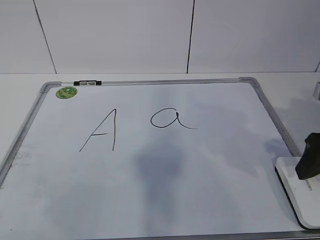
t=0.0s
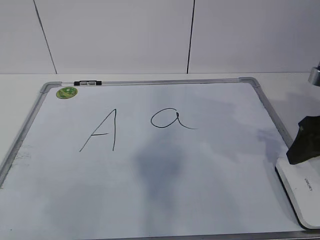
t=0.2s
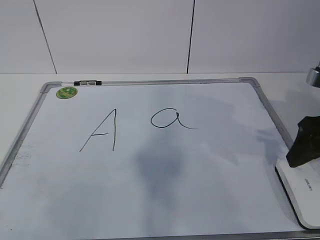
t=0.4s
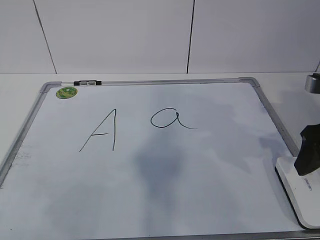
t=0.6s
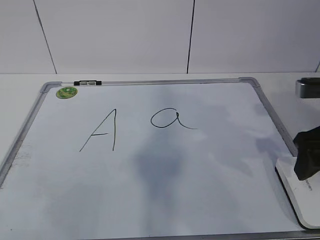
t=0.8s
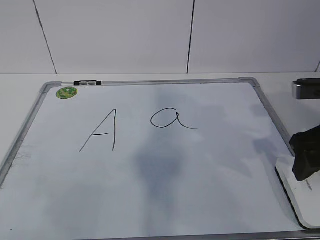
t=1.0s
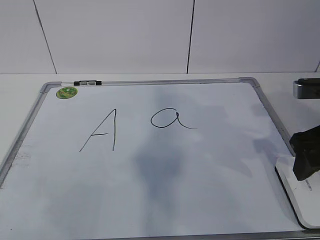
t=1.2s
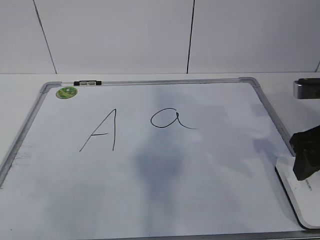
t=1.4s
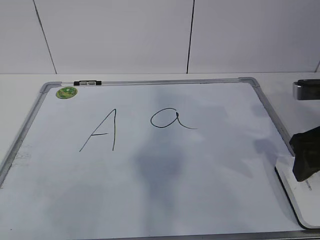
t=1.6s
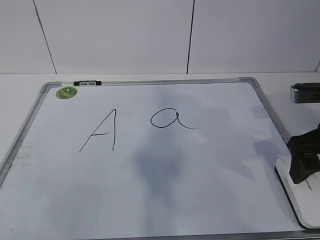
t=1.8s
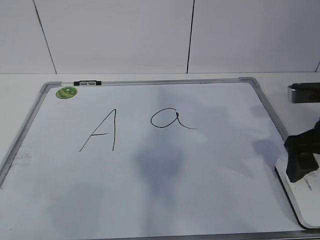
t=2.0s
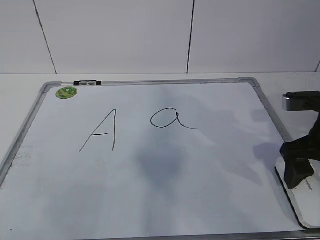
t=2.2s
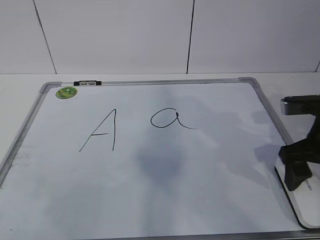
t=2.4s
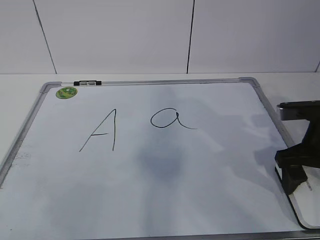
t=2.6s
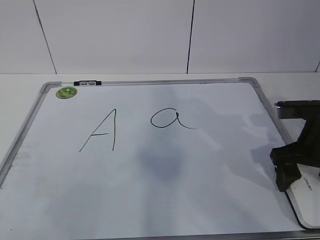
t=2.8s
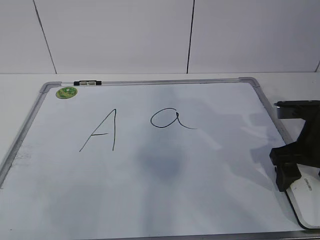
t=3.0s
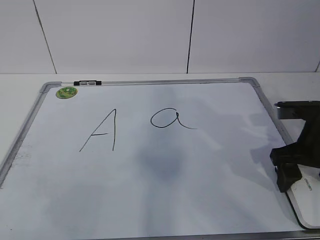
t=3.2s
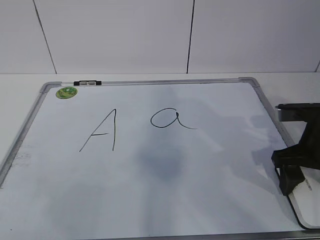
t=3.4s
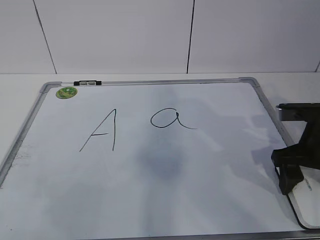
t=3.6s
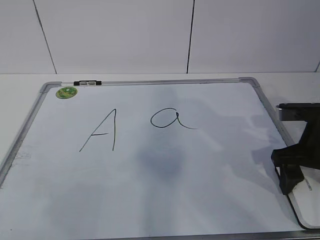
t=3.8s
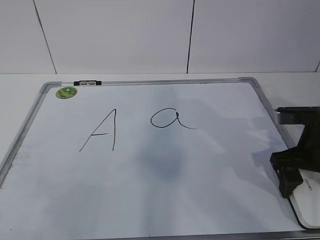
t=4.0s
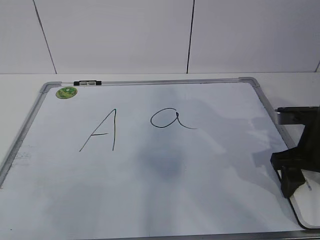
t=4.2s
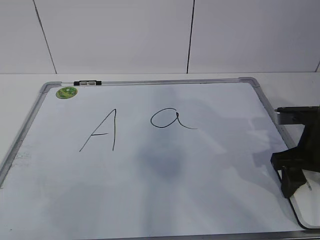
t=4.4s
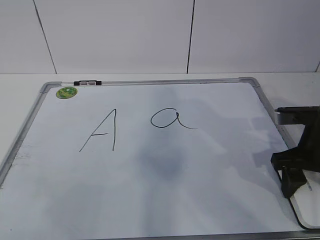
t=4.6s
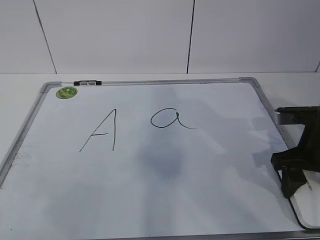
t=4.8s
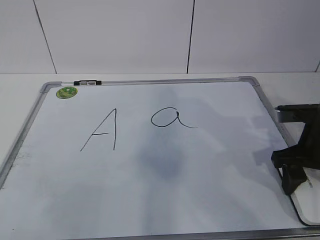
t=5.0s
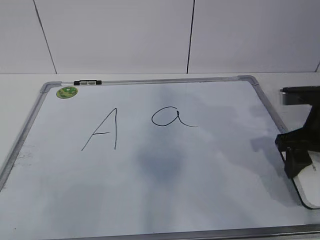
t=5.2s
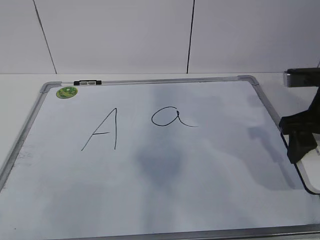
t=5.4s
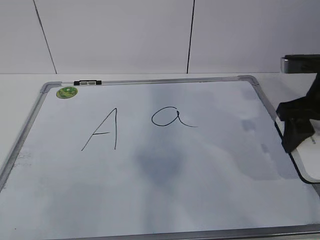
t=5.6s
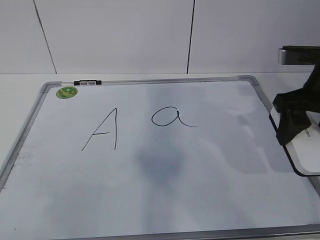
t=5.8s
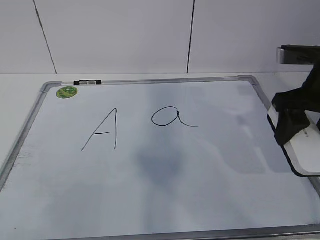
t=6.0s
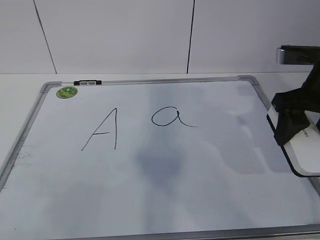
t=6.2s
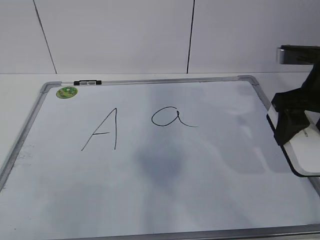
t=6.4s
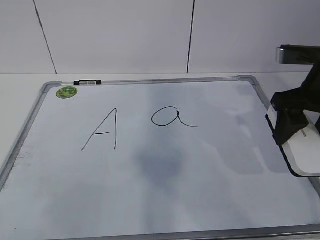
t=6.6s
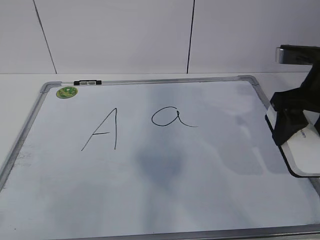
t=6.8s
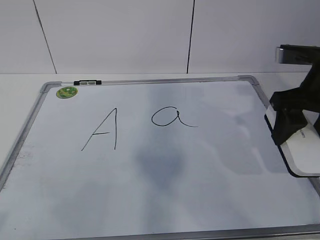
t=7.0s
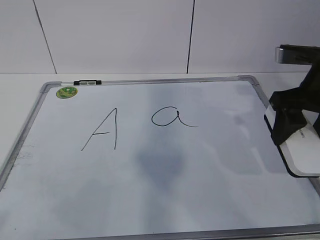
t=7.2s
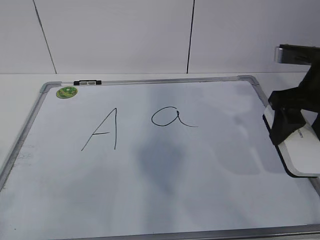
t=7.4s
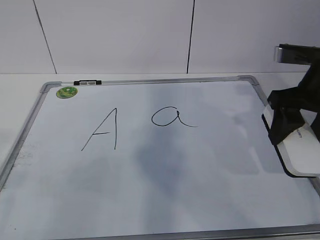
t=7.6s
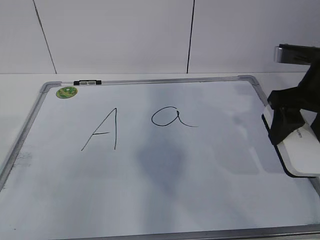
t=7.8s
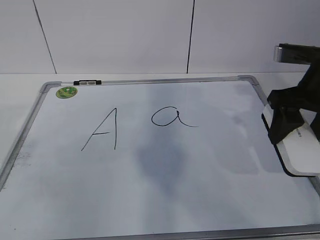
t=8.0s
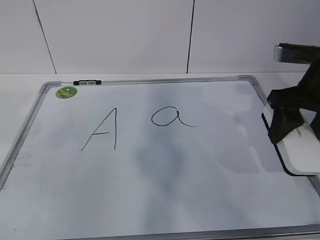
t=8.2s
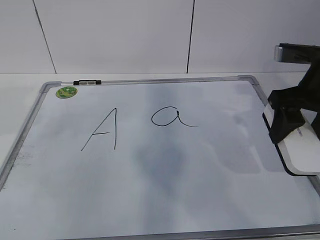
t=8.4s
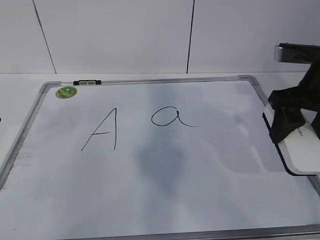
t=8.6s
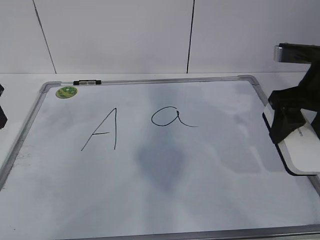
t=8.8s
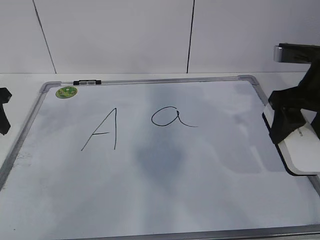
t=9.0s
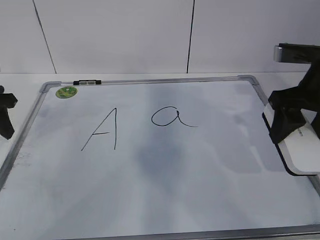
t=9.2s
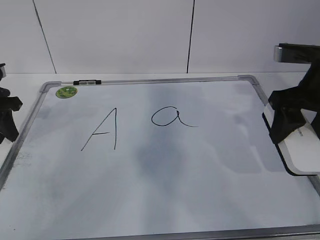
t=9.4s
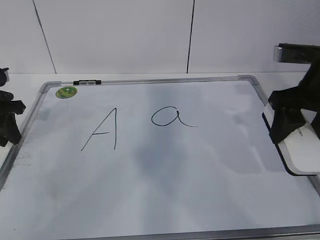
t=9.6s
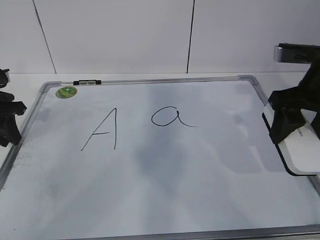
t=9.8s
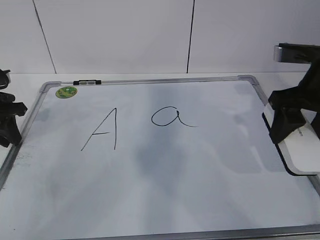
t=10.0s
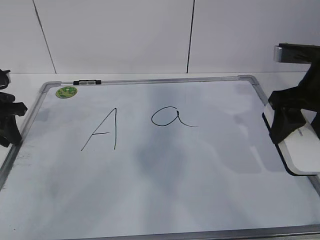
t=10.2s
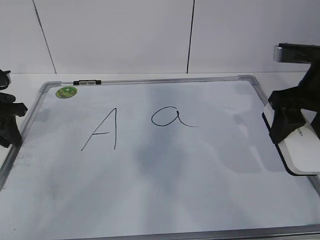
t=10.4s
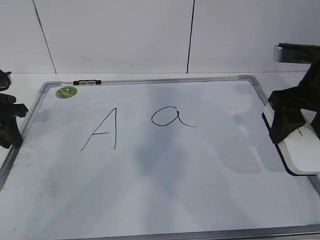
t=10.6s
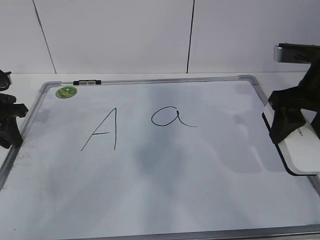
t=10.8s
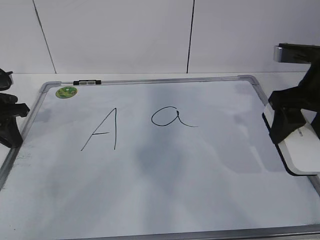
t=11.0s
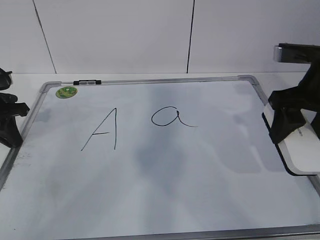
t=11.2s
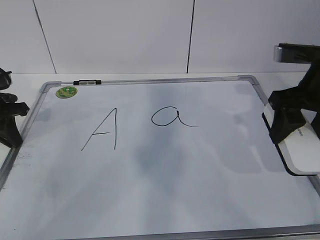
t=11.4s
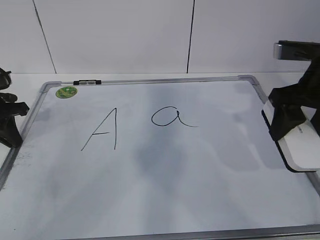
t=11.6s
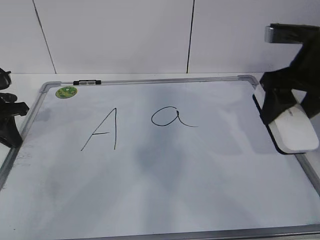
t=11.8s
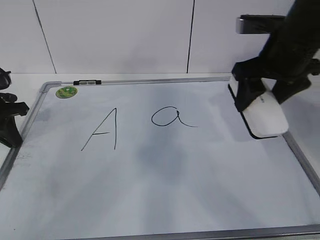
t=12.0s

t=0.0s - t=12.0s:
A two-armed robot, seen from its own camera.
Task of the whole recording: pick up the eraser on the blackboard and erase the letter "a".
Step, t=0.0s - t=2.8s: Grab the eraser with your right hand.
Step, t=3.2s - t=8.6s: Hold the drawing board steady with your left hand.
t=0.0s - t=1.6s: The grippers move only a little.
t=1.6s - t=3.0s: The right gripper shifts roughly 5 cm downward.
t=3.0s - t=4.4s: The right gripper closes its fingers.
t=4.4s - t=6.0s: The right gripper is displaced upward by roughly 10 cm.
t=7.6s - t=9.0s: The left gripper is displaced forward by some 30 cm.
t=9.0s - t=10.4s: The left gripper is displaced downward by roughly 5 cm.
t=10.4s - t=12.0s: The right gripper shifts by approximately 5 cm.

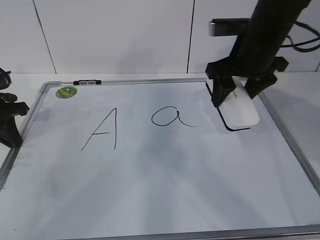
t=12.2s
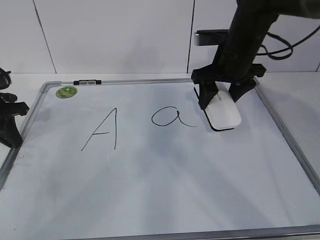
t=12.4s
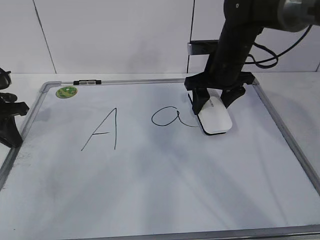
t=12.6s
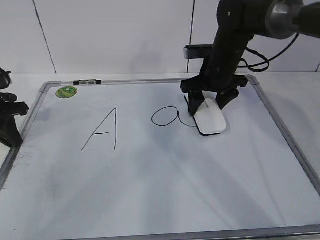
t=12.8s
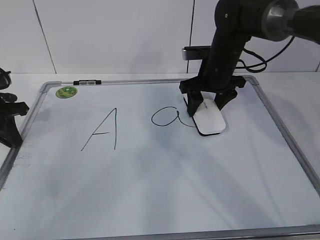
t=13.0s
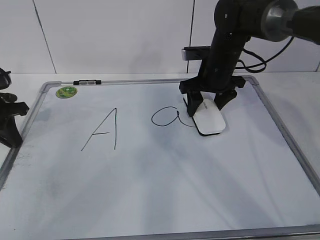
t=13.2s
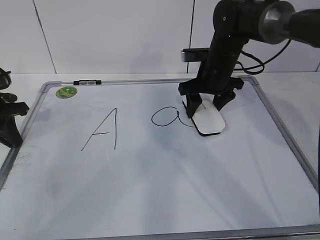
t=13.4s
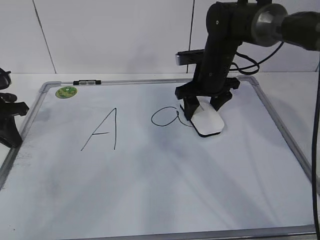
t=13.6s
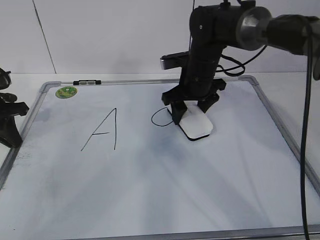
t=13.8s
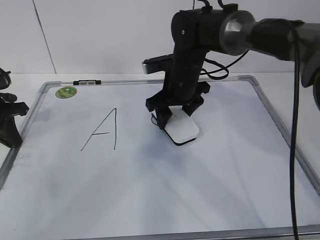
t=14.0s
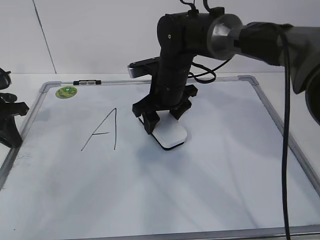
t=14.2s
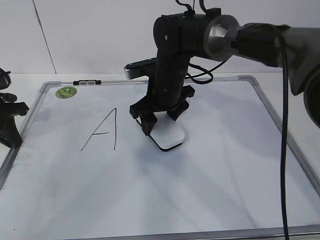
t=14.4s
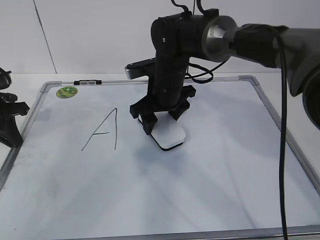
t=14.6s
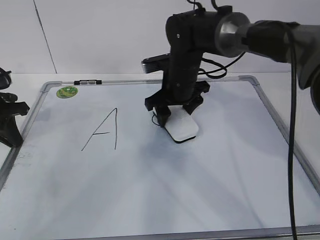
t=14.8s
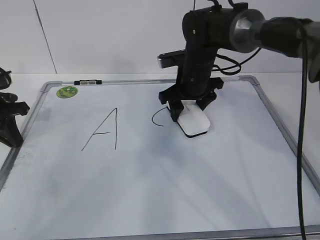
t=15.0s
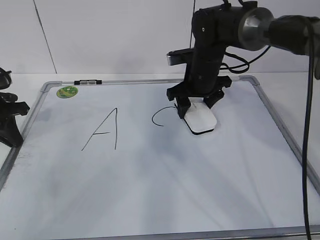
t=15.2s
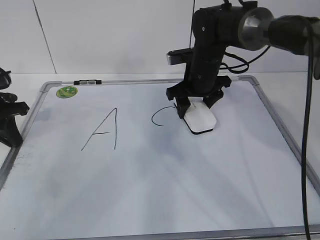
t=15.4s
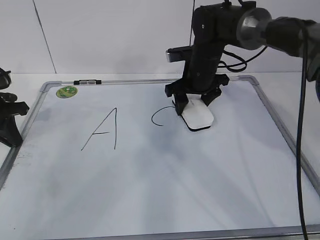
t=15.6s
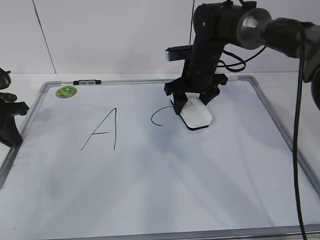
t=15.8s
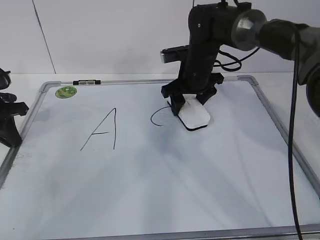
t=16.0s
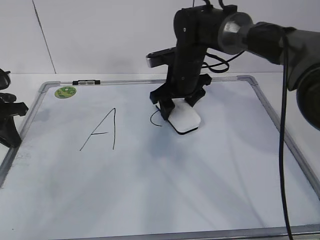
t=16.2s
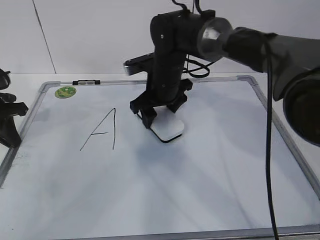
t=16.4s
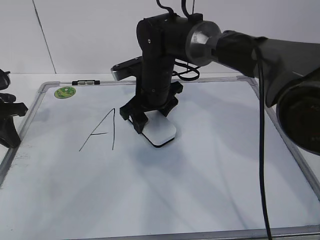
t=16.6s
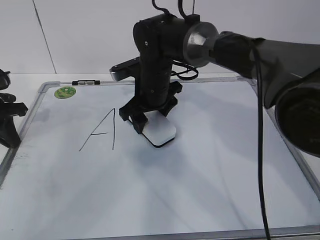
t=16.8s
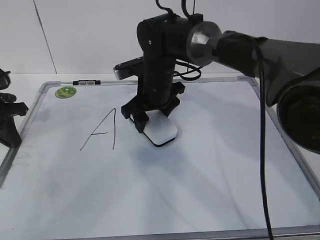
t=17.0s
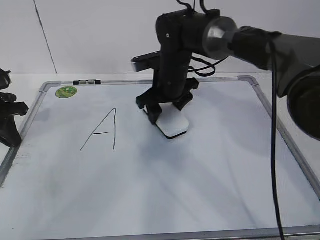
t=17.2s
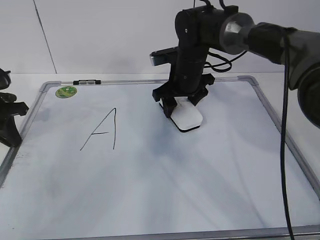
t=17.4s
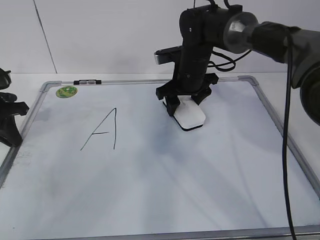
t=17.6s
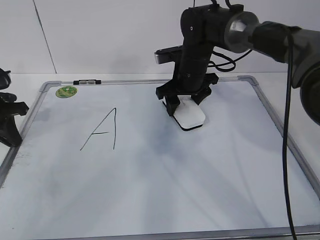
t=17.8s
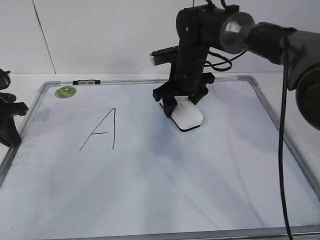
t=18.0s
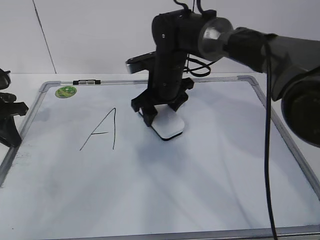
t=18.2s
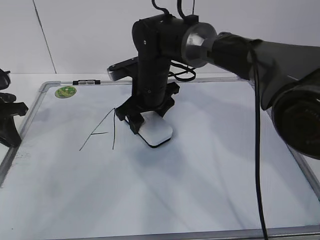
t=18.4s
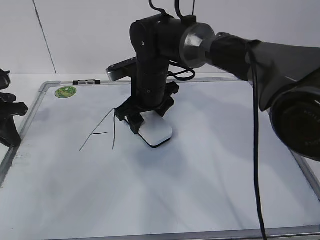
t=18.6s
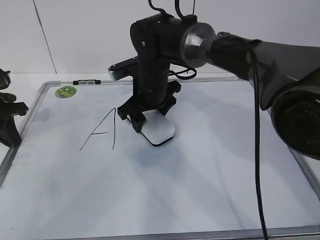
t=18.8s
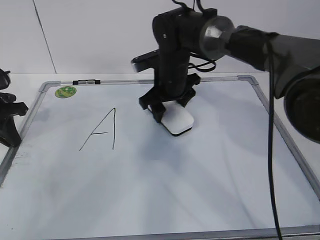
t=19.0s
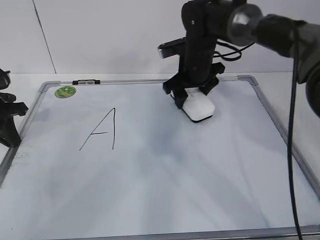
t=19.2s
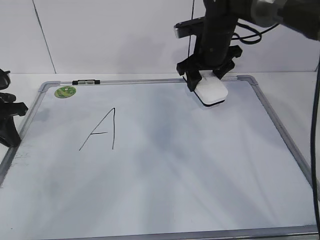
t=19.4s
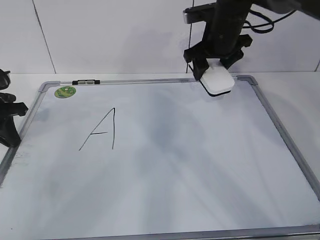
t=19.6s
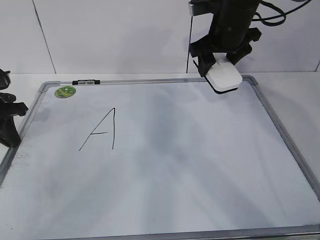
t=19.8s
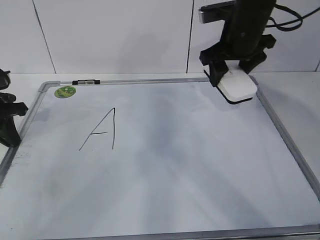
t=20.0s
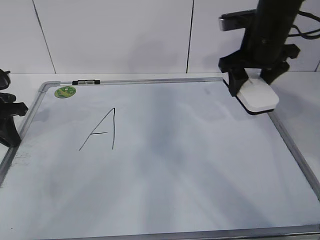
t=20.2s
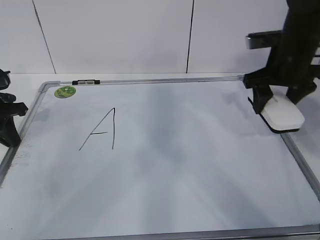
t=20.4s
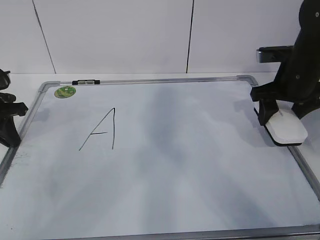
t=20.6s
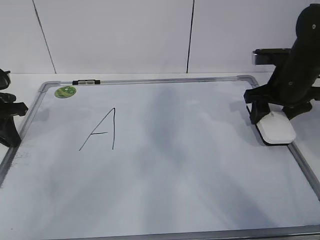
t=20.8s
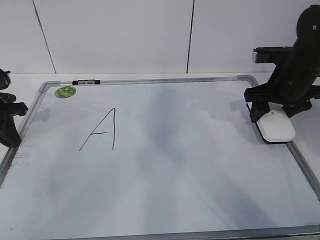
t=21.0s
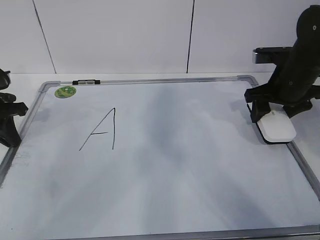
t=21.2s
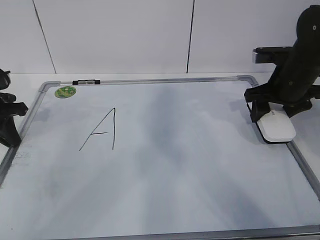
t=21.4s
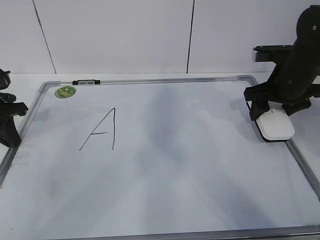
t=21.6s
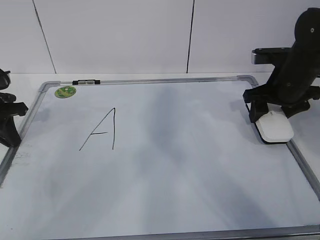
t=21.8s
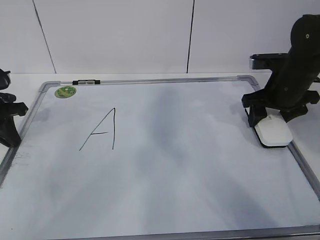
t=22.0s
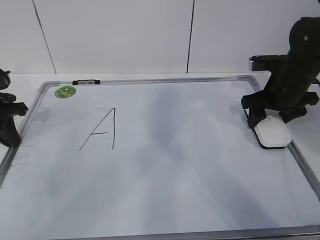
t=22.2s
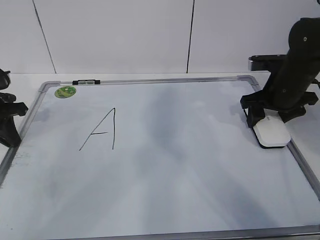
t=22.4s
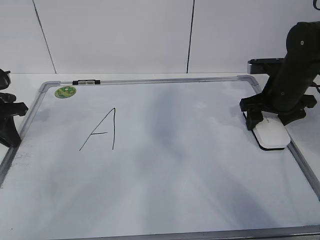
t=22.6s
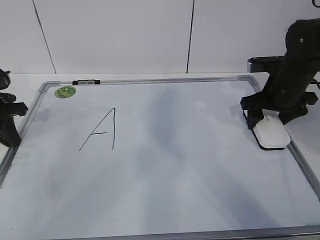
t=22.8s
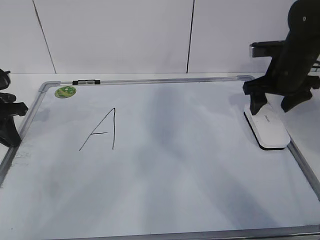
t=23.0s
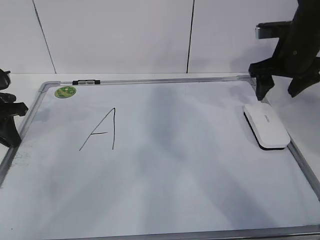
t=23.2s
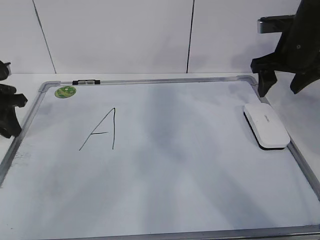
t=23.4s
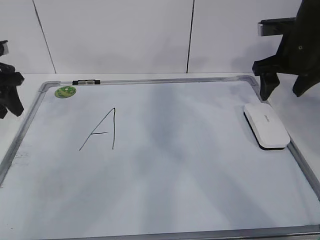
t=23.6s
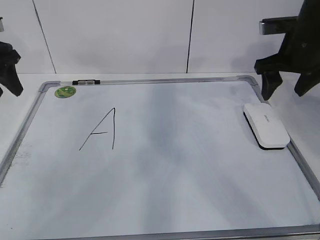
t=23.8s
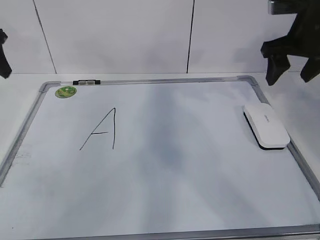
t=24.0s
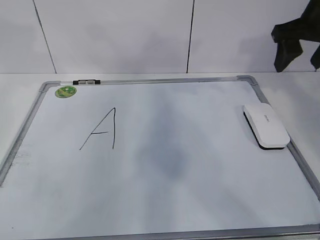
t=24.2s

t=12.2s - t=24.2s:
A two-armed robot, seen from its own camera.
Task of the whole recording: pick up the eraser on the blackboard and erase the letter "a".
Step, t=12.2s - t=15.0s: Erase the letter a with your right hand.
Step, t=15.2s - t=18.0s: Put down the eraser with your right hand.
t=12.2s - t=13.8s: The right gripper heads downward, to the left and forward, covering roughly 15 cm.
t=13.8s - t=15.2s: The right gripper travels to the left and back again, about 5 cm each way.
t=15.2s - t=16.6s: The right gripper heads to the left, covering some 10 cm.
t=16.6s - t=18.2s: The right gripper goes to the right and returns, some 10 cm each way.
t=18.2s - t=19.8s: The right gripper goes about 15 cm to the right and upward.
t=19.8s - t=21.2s: The right gripper goes approximately 15 cm to the right, downward and backward.
t=21.2s - t=22.6s: The right gripper opens its fingers.
t=22.6s - t=24.2s: Both grippers move upward, approximately 15 cm. The left gripper opens.
